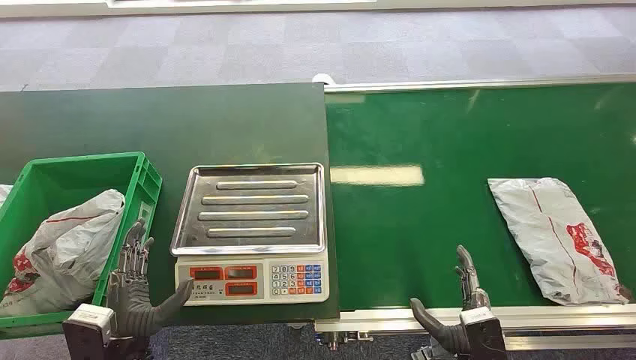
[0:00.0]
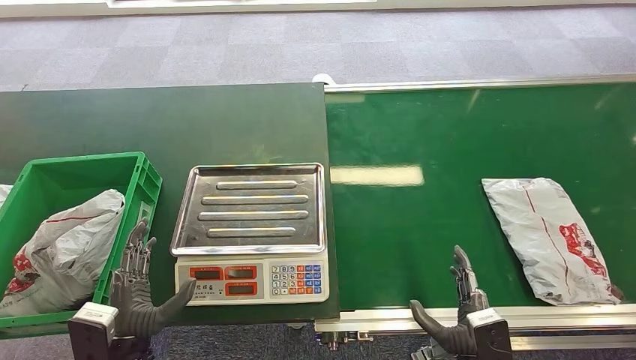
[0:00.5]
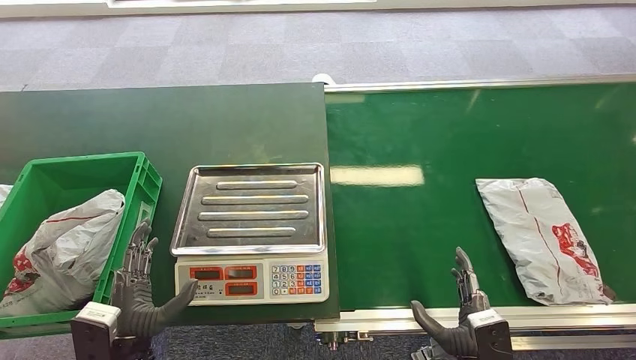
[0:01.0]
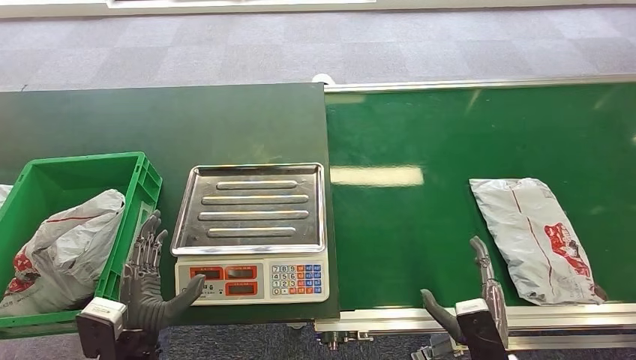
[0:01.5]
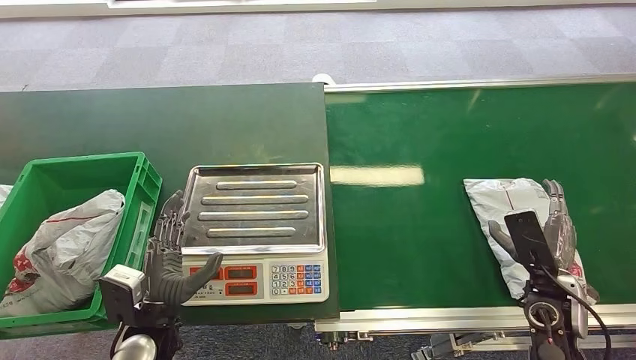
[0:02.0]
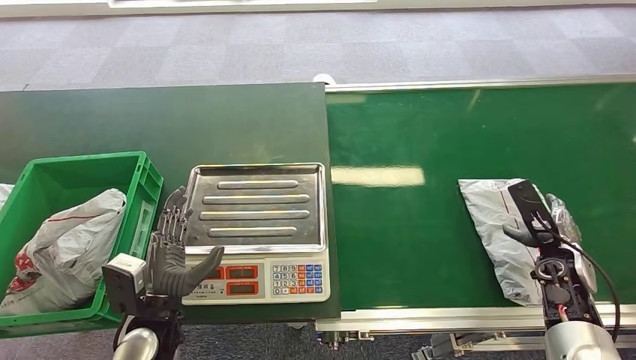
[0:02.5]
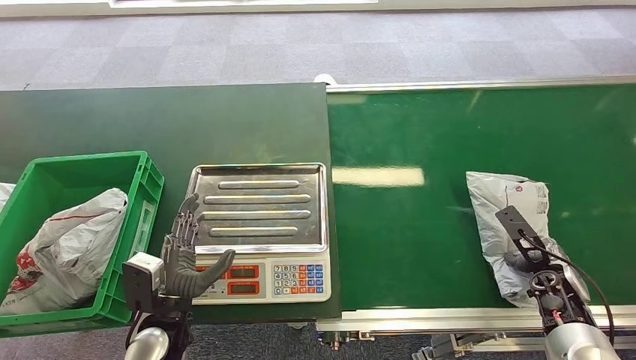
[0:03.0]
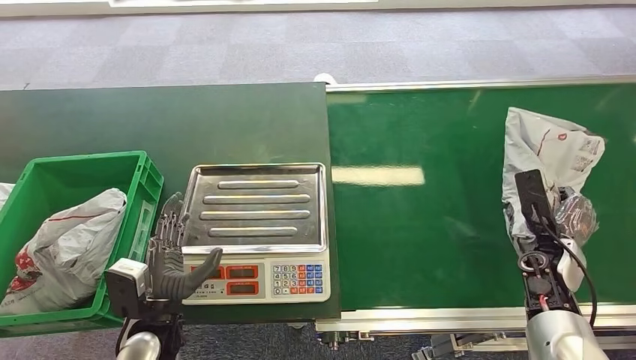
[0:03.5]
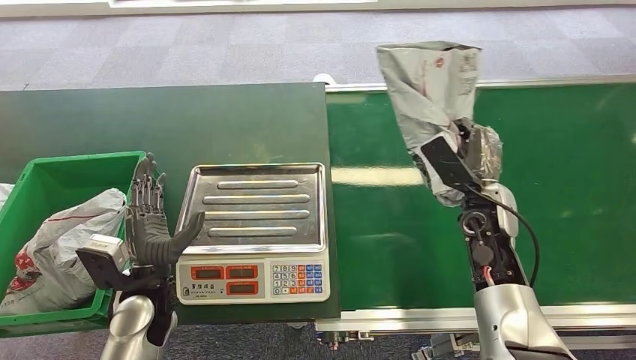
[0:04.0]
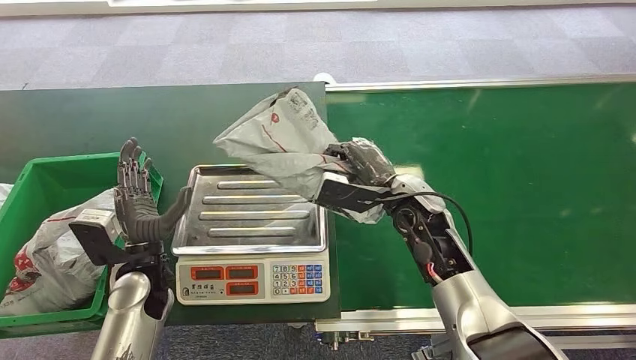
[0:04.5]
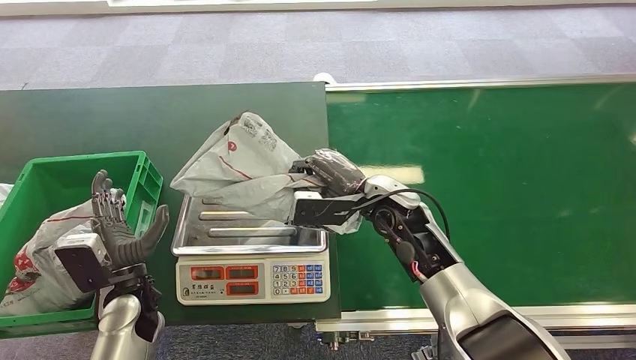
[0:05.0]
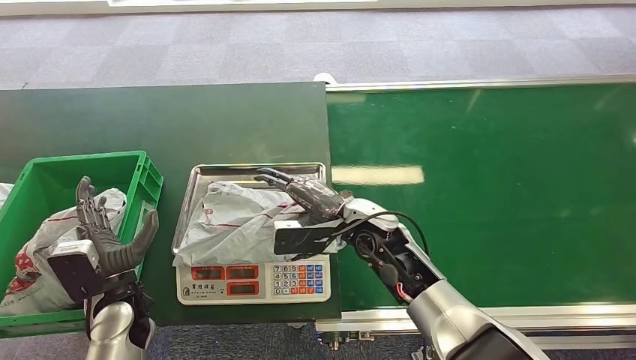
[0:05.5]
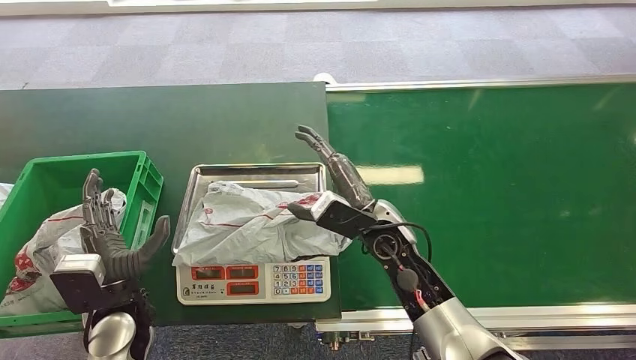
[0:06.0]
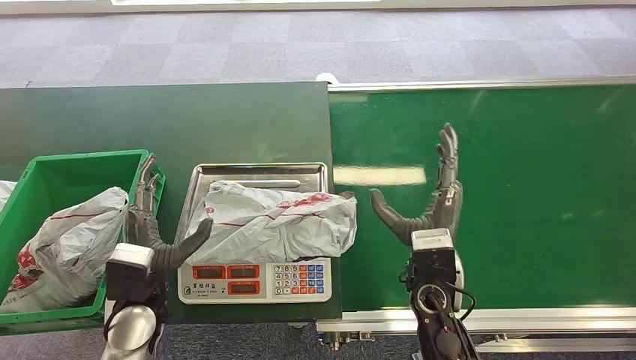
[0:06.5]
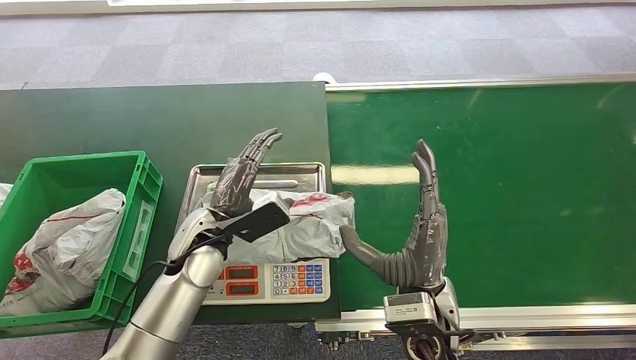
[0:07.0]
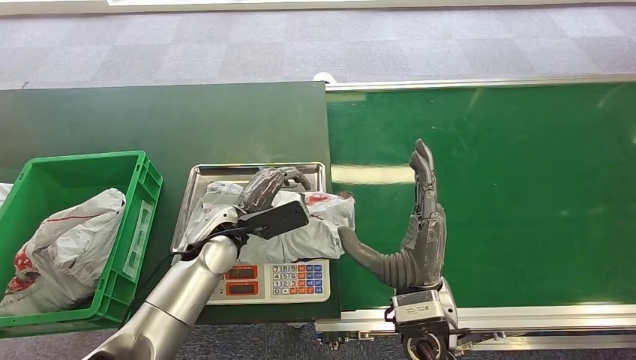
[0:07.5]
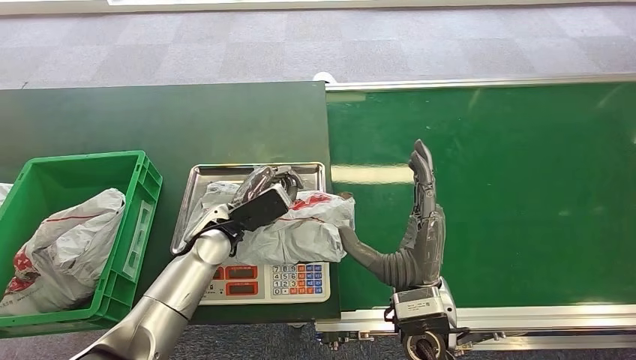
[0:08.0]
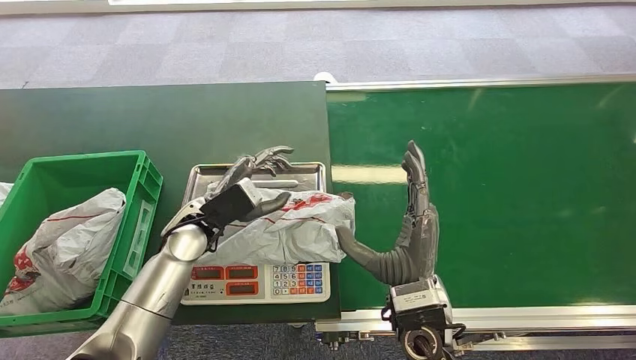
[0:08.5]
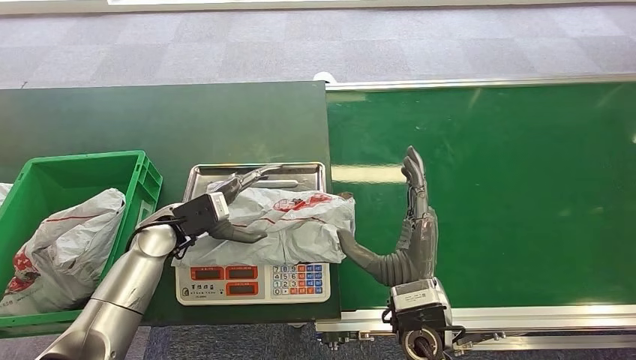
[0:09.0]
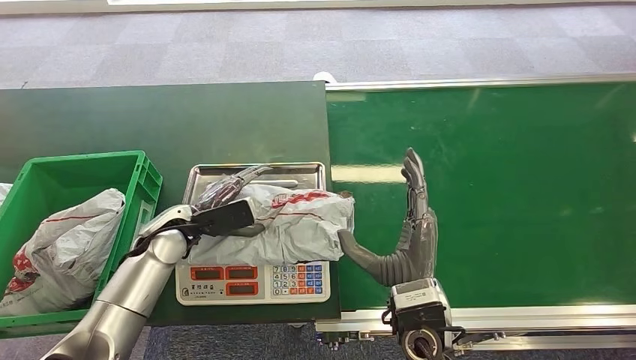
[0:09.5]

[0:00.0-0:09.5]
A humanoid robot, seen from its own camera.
Step, 0:00.0 to 0:04.0: Pick up the package from the conveyor belt.
Step, 0:05.0 to 0:06.0: Place the package onto the inbound machine.
0:02.0 to 0:04.0: The right hand travels forward, to the left and upward by some 15 cm. Meanwhile the left hand moves forward, some 5 cm.
0:05.5 to 0:07.5: The left hand shifts roughly 20 cm to the right, forward and upward. The right hand moves backward, about 15 cm.
0:07.5 to 0:09.5: The left hand travels to the left by some 10 cm.

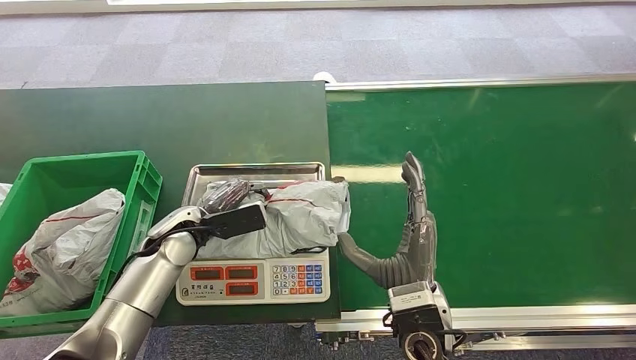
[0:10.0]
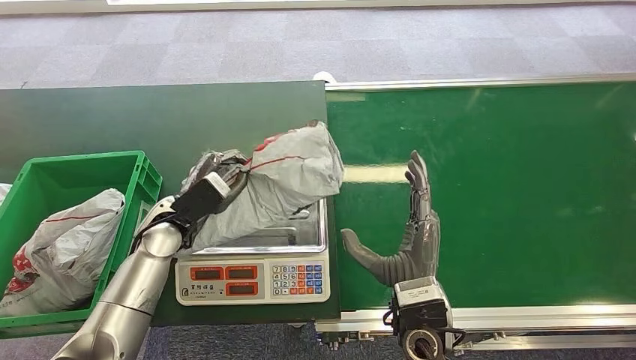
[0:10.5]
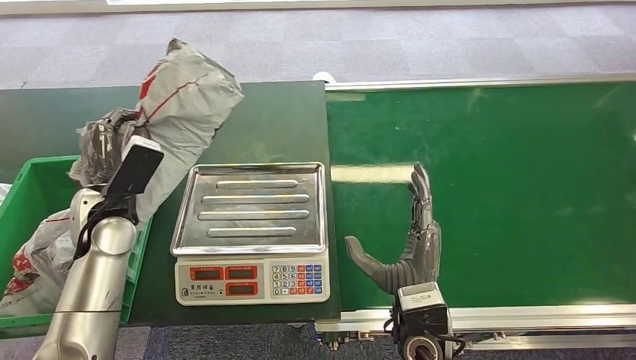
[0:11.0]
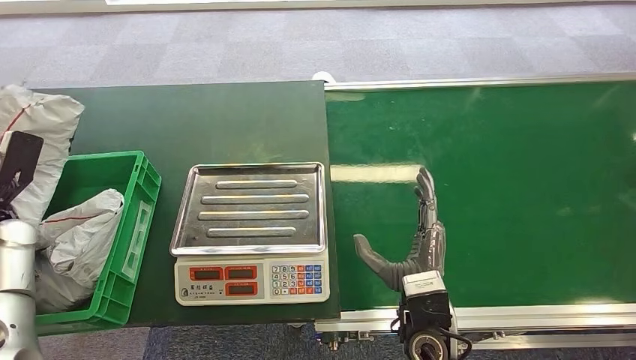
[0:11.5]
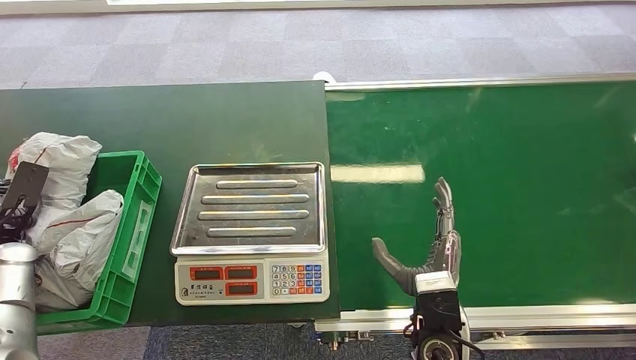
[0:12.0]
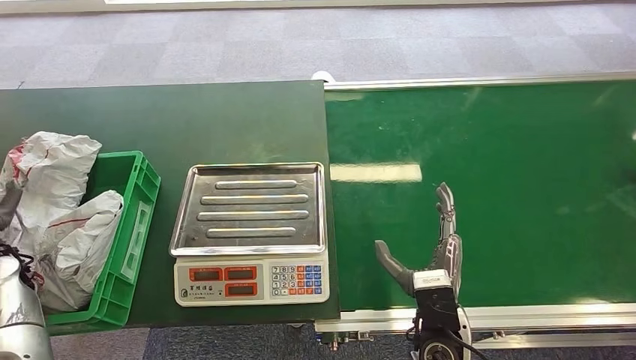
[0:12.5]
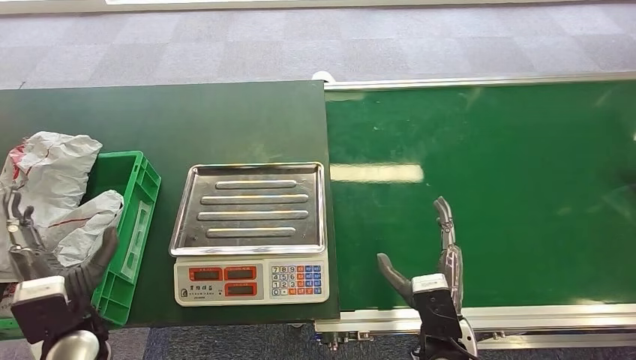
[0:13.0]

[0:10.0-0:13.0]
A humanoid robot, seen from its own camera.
Step, 0:11.0 to 0:13.0: Place the package into the parcel locker.
0:10.0 to 0:11.5: The left hand heads to the left, covering roughly 30 cm.
0:11.5 to 0:13.0: The right hand shifts by some 5 cm. The left hand moves to the right and backward, about 25 cm.
